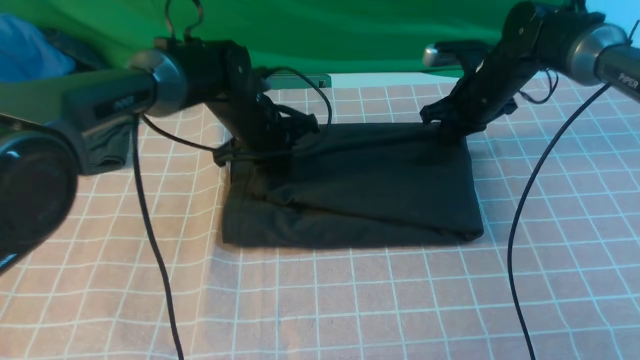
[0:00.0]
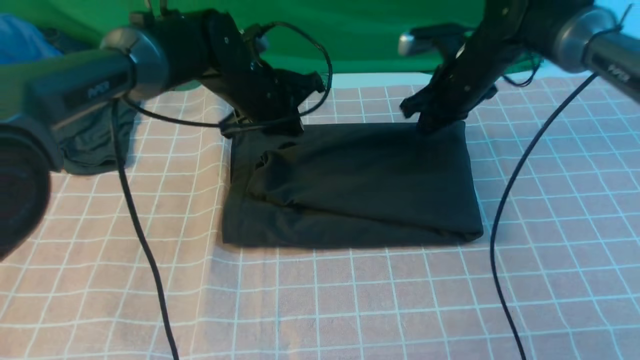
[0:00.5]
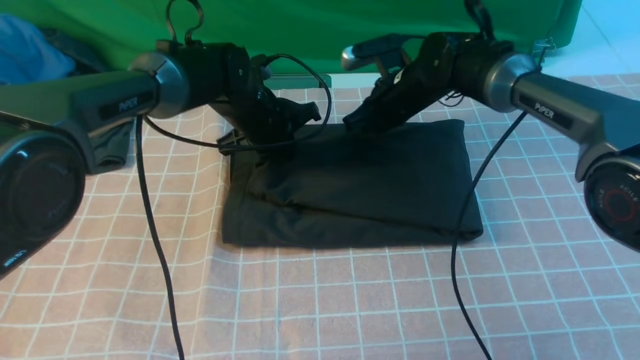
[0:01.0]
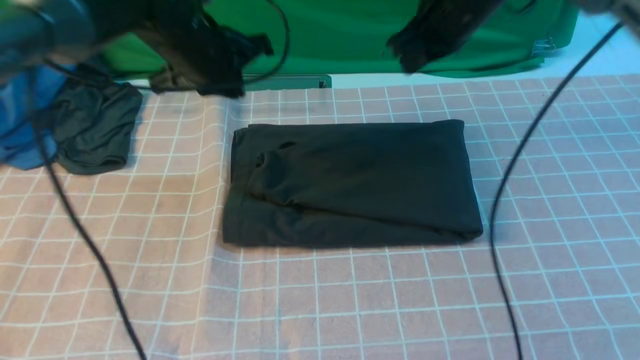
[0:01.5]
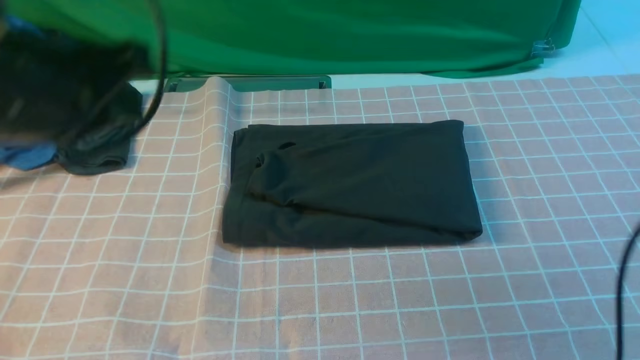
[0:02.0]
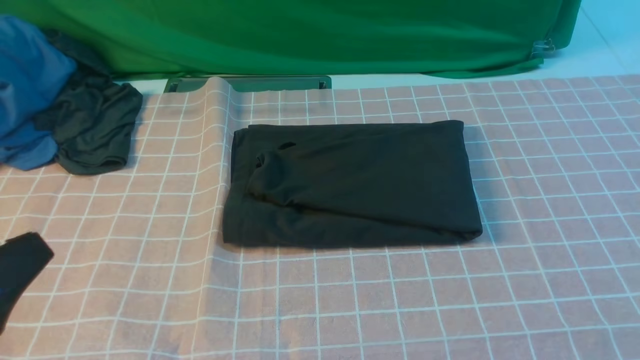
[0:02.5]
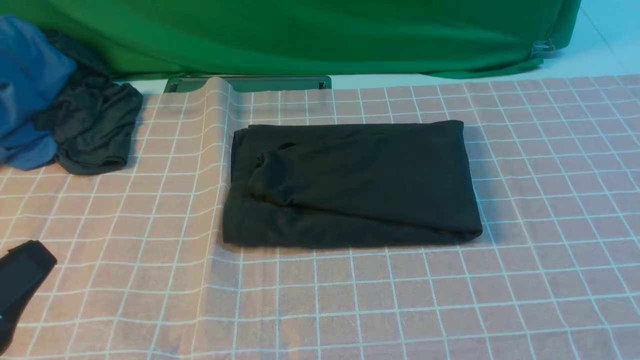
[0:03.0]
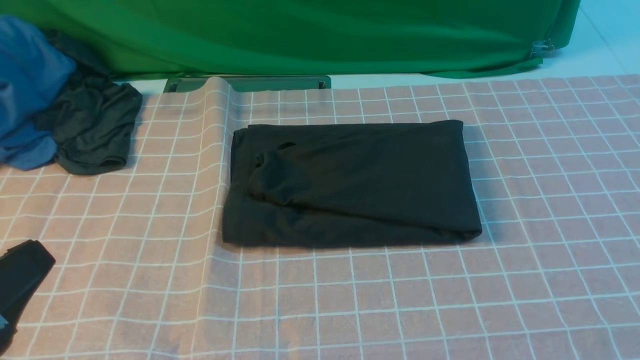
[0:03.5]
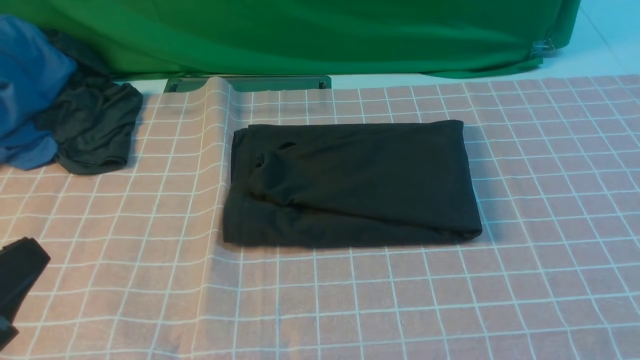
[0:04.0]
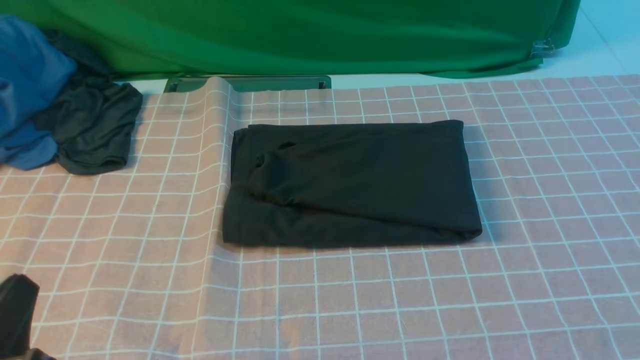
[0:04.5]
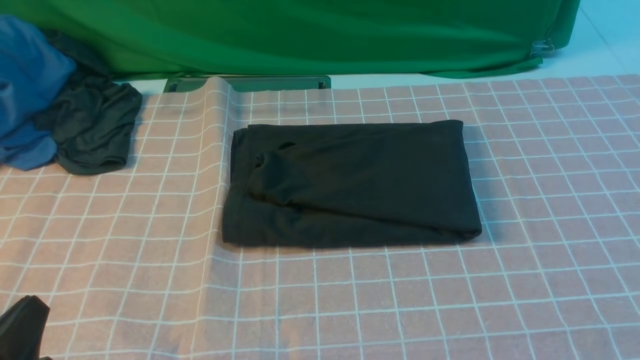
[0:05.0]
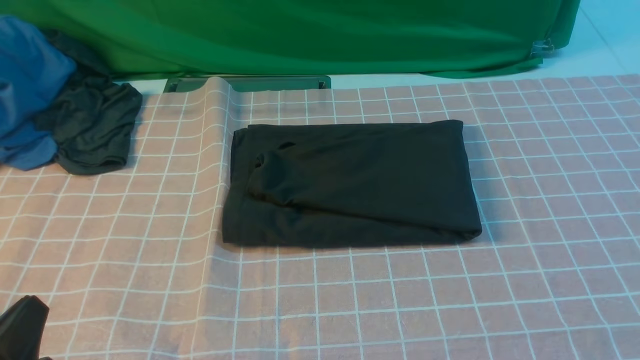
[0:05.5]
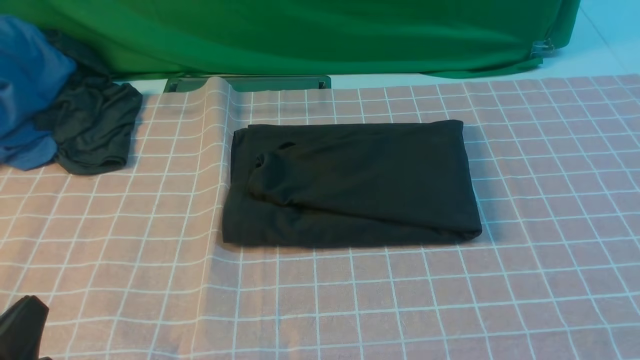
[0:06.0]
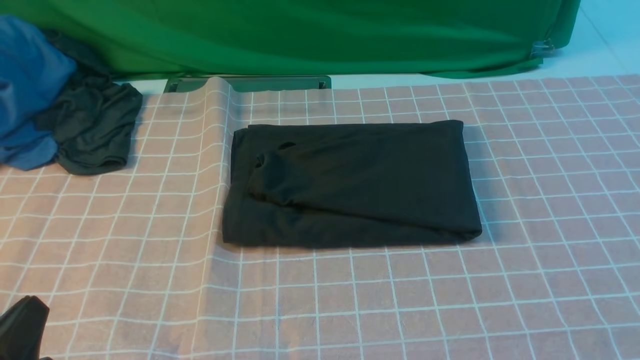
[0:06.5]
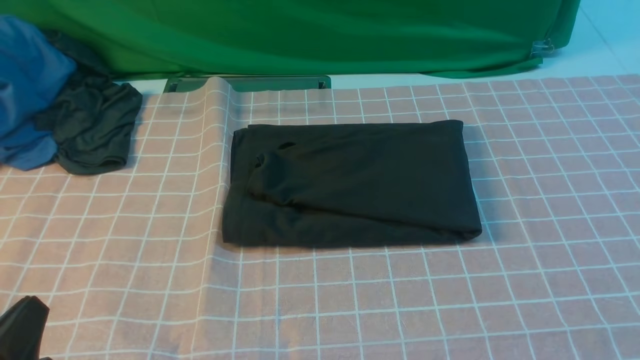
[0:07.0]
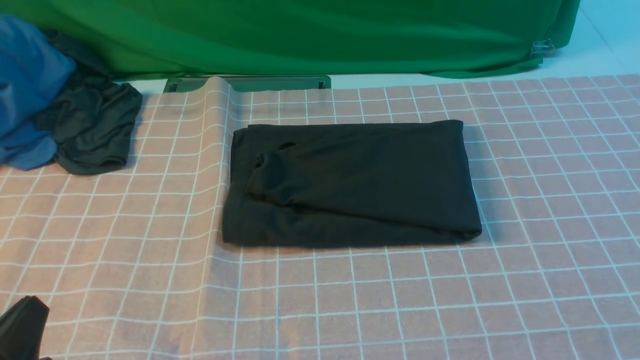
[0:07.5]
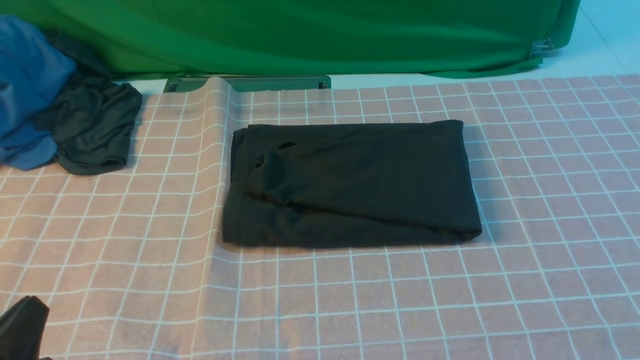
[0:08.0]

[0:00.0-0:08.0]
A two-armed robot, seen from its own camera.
0:00.0 to 0:02.0: The right gripper shifts some 30 cm upward and backward; the left gripper heads backward and upward, covering approximately 30 cm.
0:02.0 to 0:04.0: The left gripper heads backward and downward, covering roughly 15 cm.
0:04.0 to 0:06.0: The left gripper moves downward, approximately 10 cm.

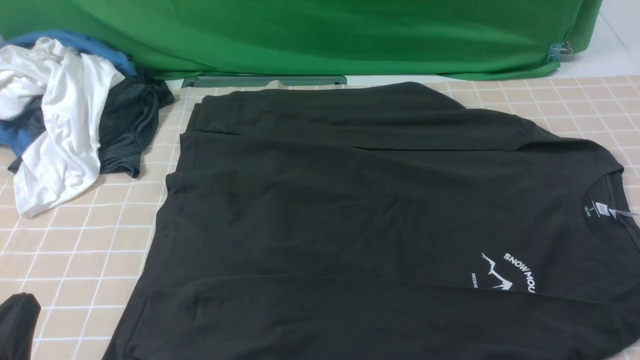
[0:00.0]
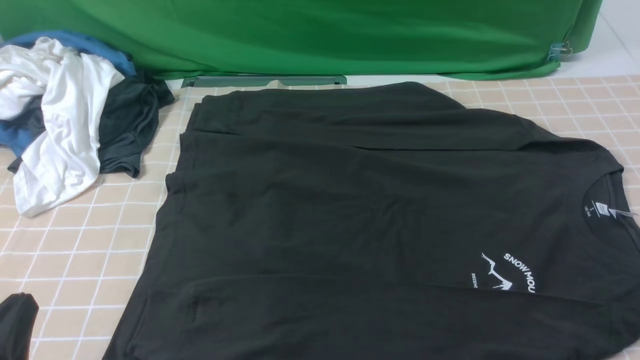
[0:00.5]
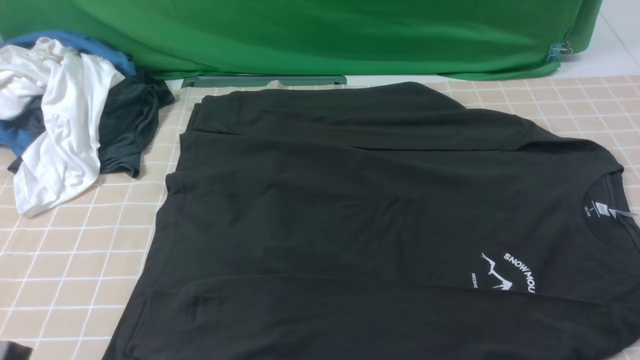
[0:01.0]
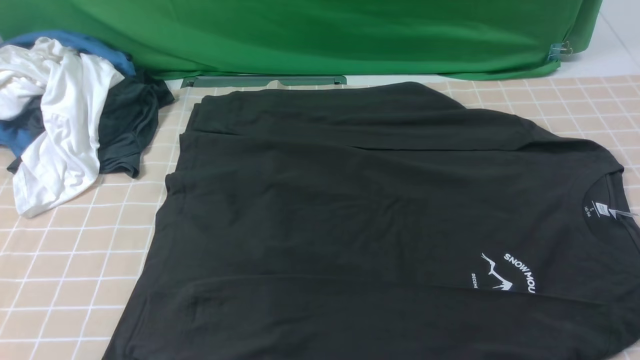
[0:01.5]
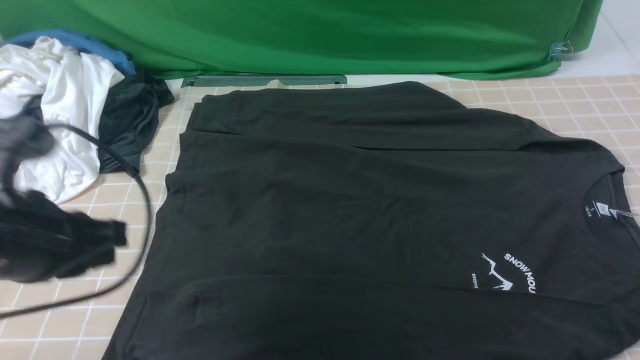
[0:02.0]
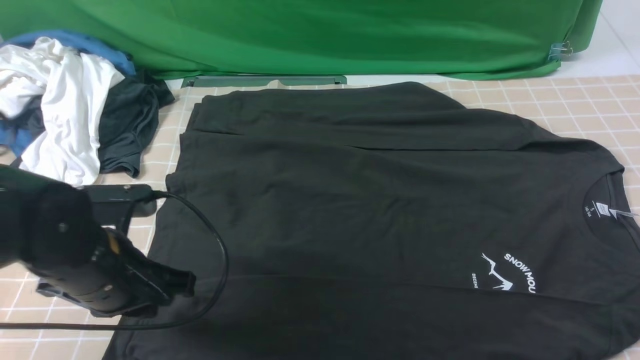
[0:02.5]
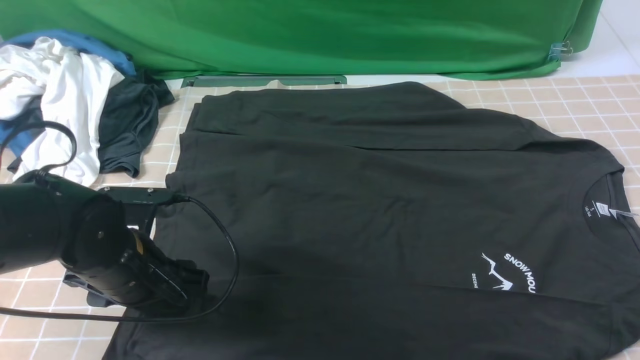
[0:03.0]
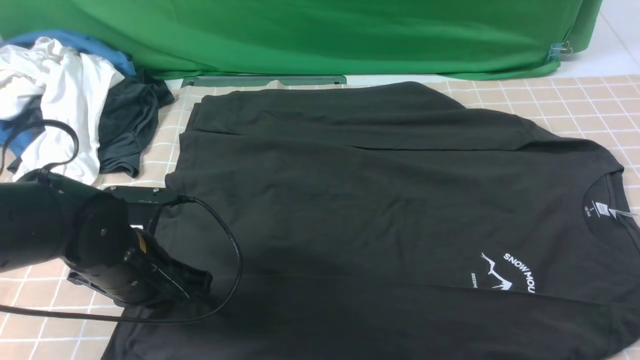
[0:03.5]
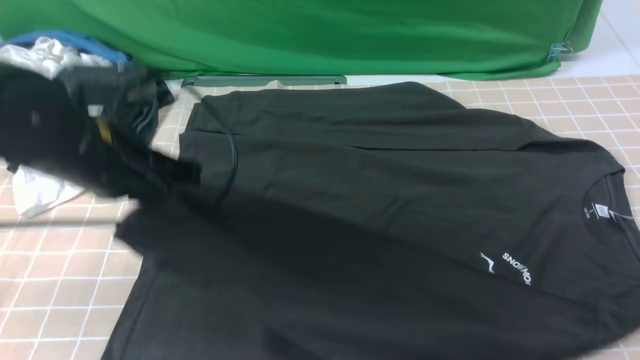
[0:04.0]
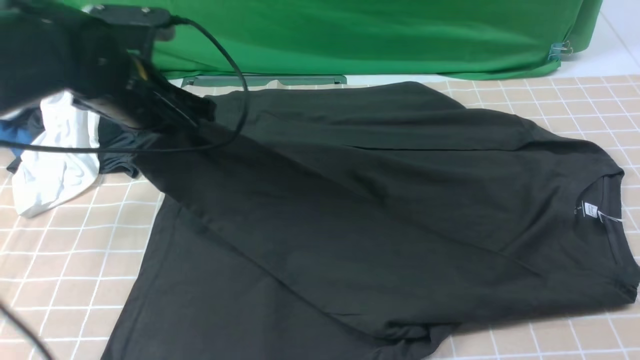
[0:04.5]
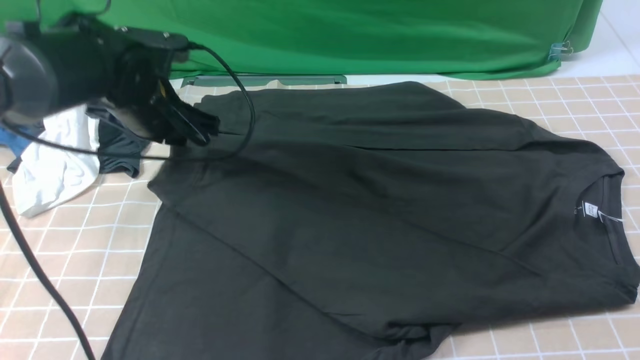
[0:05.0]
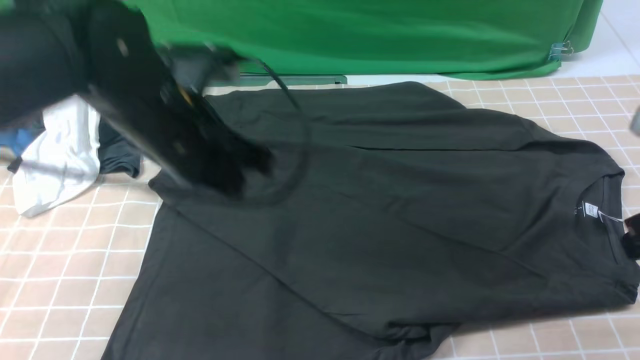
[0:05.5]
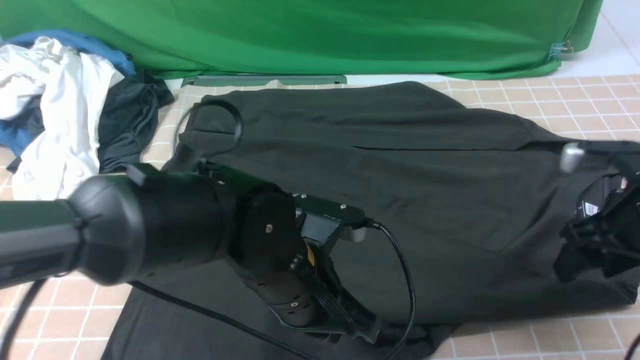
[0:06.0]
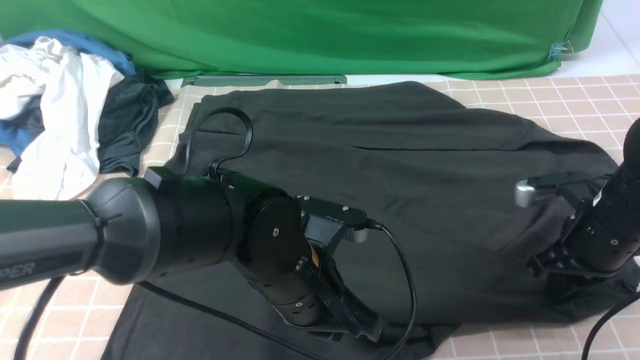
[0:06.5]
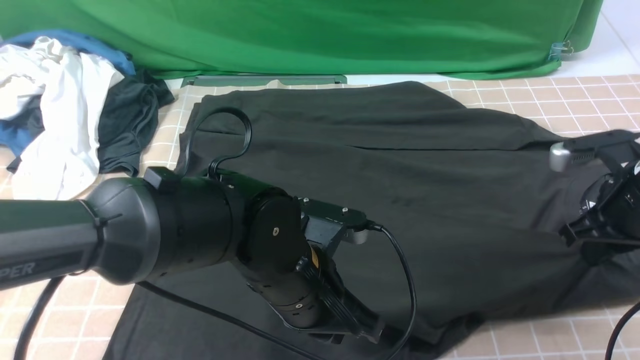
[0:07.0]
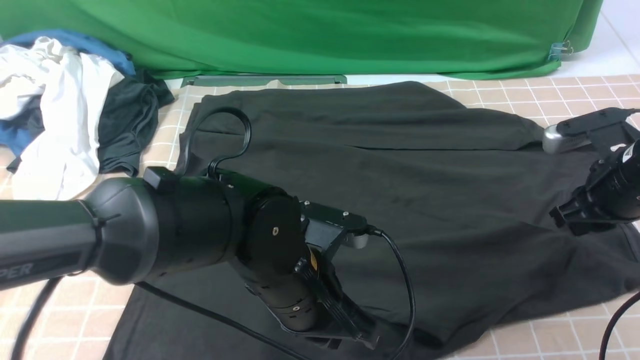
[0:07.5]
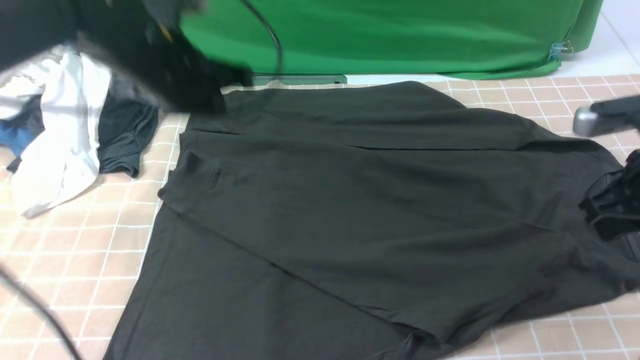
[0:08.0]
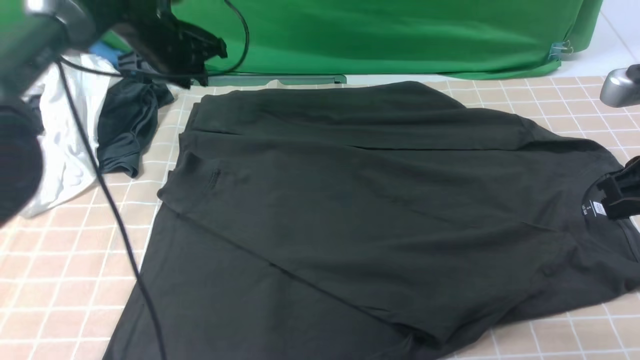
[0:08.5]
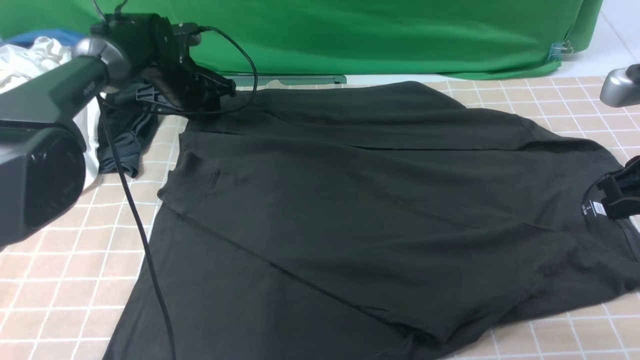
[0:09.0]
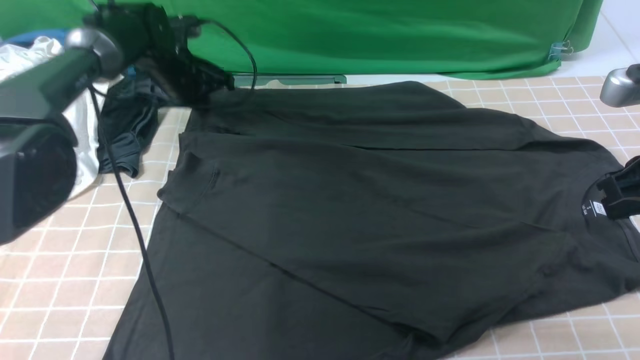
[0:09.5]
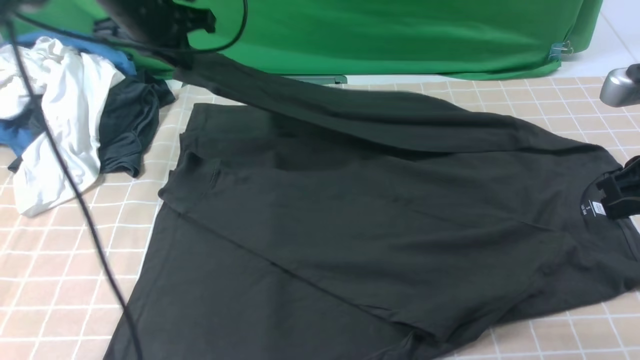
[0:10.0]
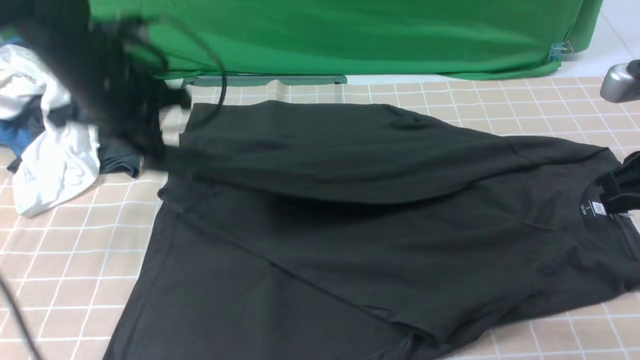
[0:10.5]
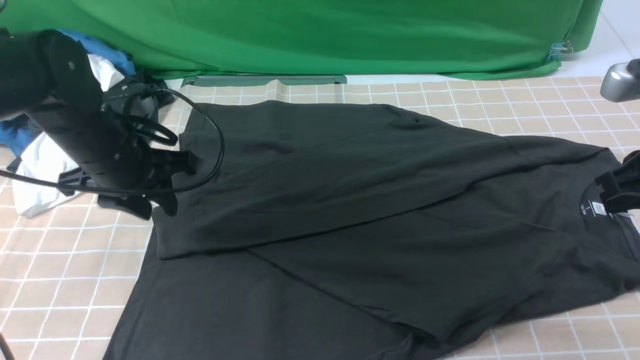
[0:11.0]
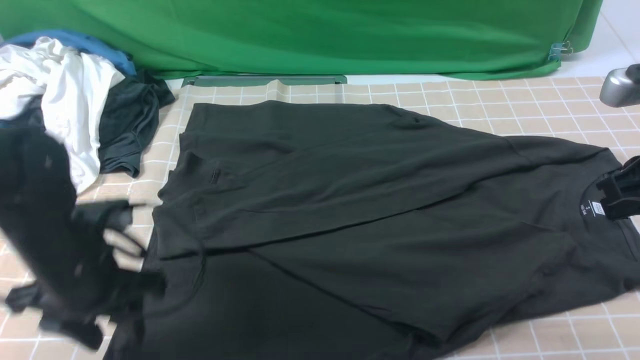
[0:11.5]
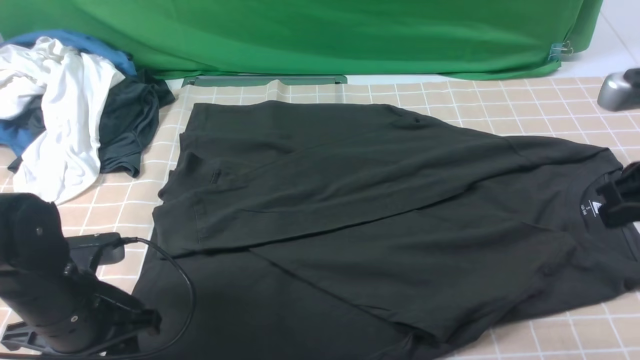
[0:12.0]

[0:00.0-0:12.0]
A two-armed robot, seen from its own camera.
Step, 0:00.0 to 0:03.5: use the left arm to clamp the cuff closest to it.
Step, 0:04.0 to 0:05.0: use the left arm to drag and place the cuff at the centered position on the left edge of the fabric.
Step, 0:05.5 to 0:09.5: use the left arm to clamp the cuff farthest from it.
Step, 0:10.0 to 0:11.0: use the left arm to drag and drop the cuff onto the cuff closest to the left arm.
0:00.0 to 0:02.0: The left gripper moves forward and upward, some 15 cm.
0:02.0 to 0:04.0: The right gripper shifts approximately 10 cm forward and upward, while the left gripper shifts about 10 cm forward, travels downward and back again, approximately 10 cm each way, and opens, then closes once more.
0:04.0 to 0:06.0: The left gripper goes approximately 20 cm to the right, downward and backward, and opens, then closes again; the right gripper goes approximately 20 cm forward and downward, and opens.
0:06.0 to 0:08.0: The right gripper travels upward by some 5 cm, and closes up. The left gripper shifts some 20 cm forward, to the left and upward.
0:08.0 to 0:10.0: The left gripper goes approximately 10 cm forward and to the left, and opens, then closes once more.
0:10.0 to 0:12.0: The left gripper shifts some 30 cm backward and downward, and opens its fingers.
